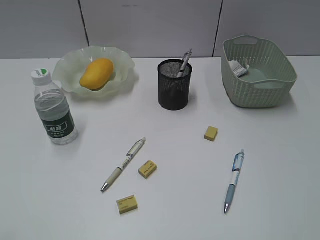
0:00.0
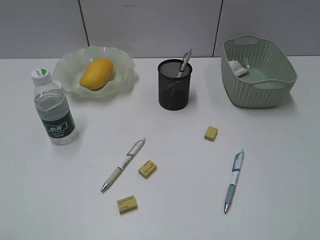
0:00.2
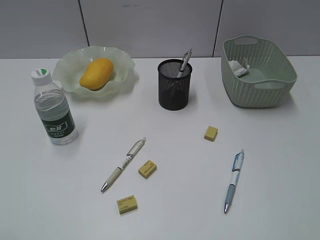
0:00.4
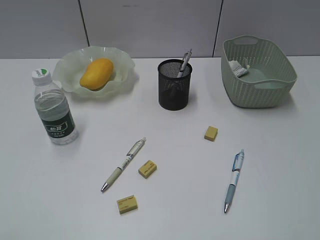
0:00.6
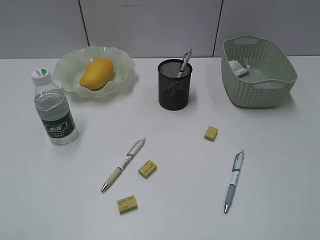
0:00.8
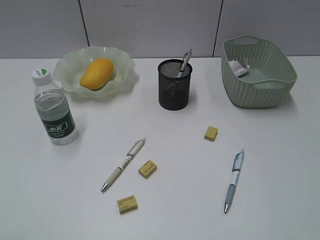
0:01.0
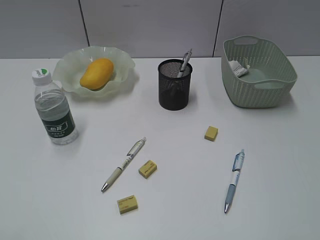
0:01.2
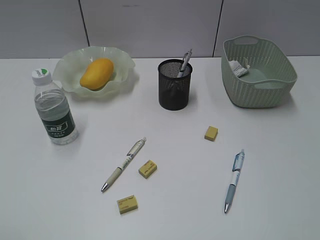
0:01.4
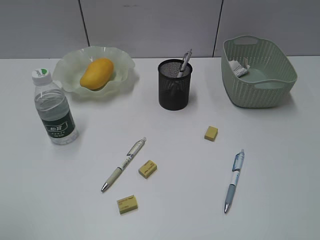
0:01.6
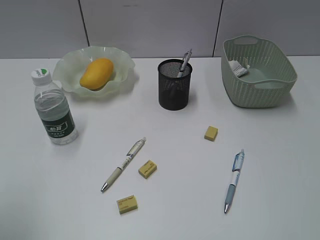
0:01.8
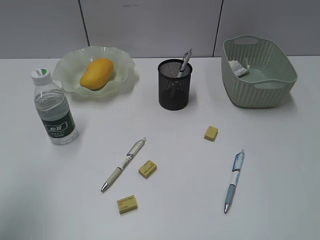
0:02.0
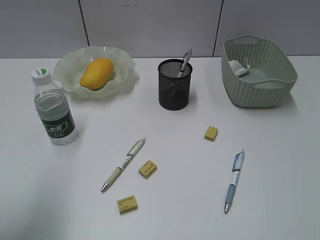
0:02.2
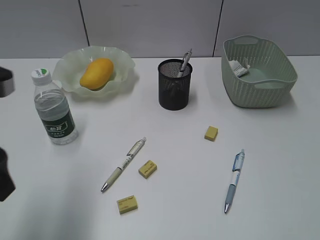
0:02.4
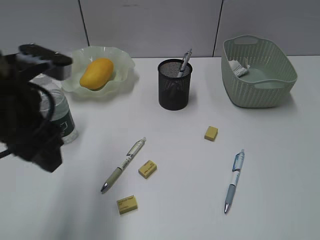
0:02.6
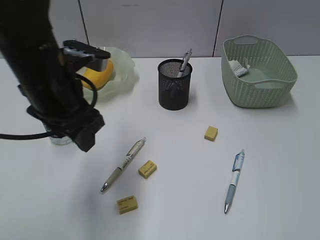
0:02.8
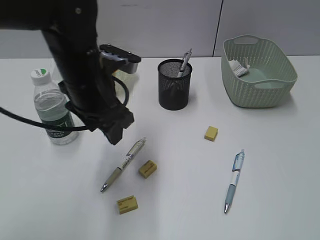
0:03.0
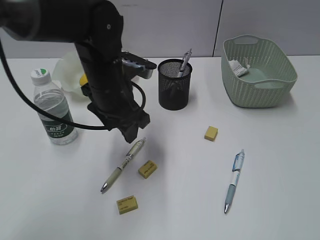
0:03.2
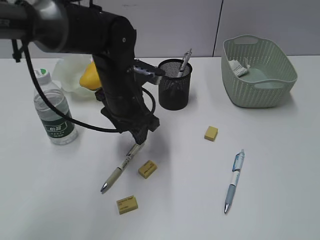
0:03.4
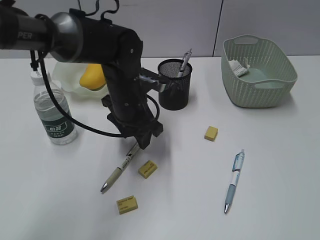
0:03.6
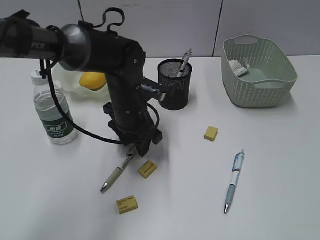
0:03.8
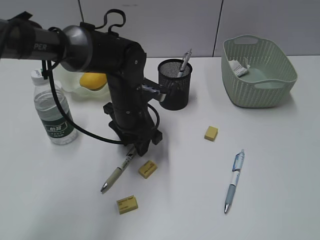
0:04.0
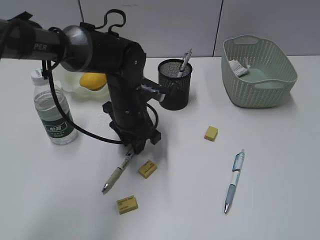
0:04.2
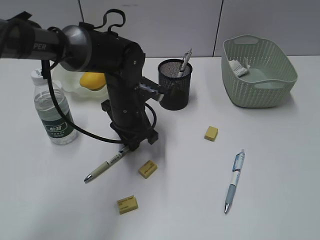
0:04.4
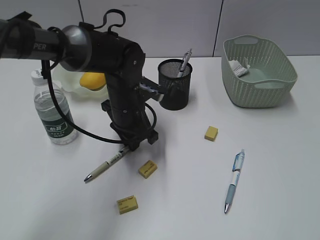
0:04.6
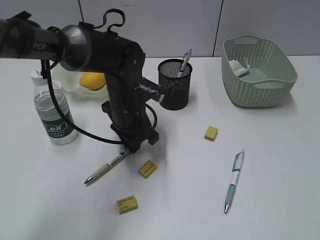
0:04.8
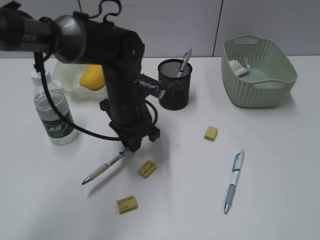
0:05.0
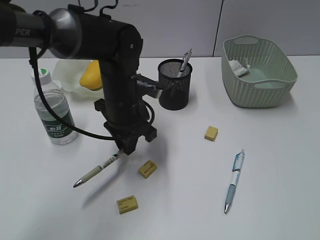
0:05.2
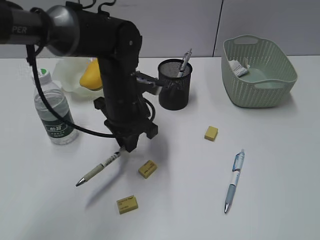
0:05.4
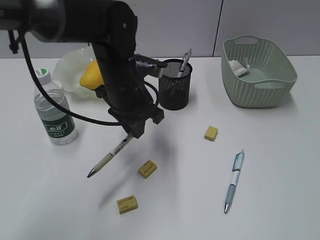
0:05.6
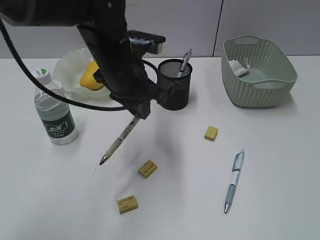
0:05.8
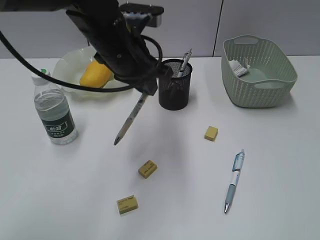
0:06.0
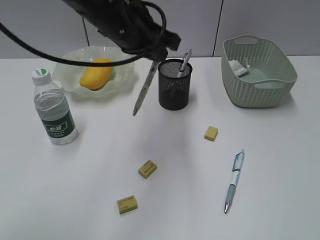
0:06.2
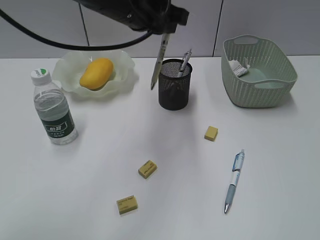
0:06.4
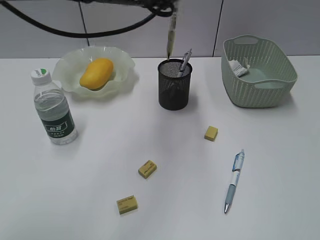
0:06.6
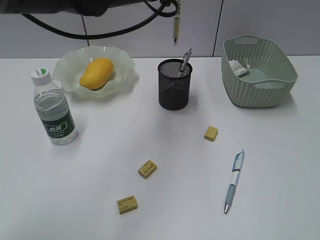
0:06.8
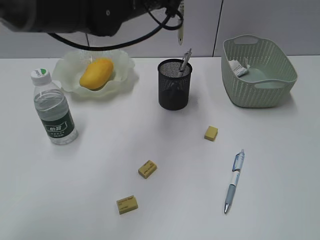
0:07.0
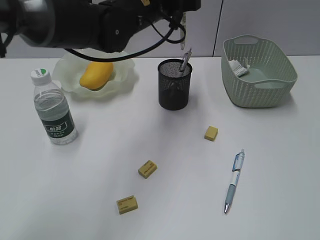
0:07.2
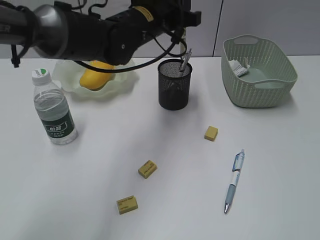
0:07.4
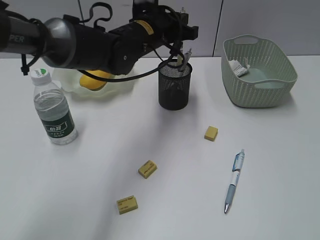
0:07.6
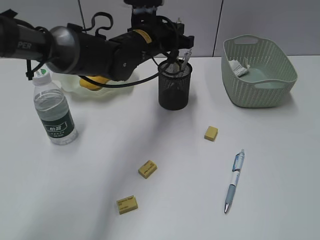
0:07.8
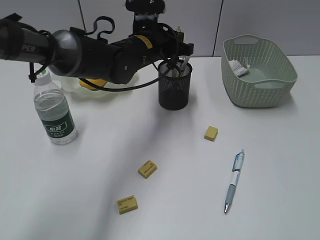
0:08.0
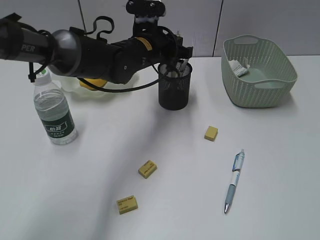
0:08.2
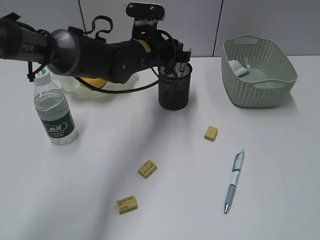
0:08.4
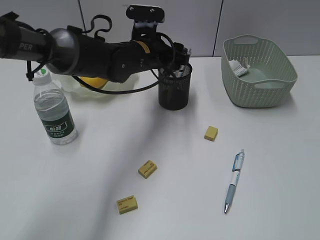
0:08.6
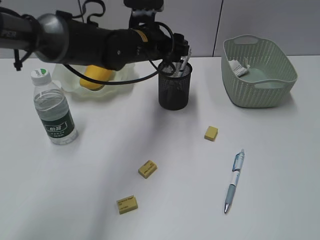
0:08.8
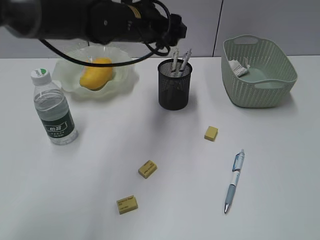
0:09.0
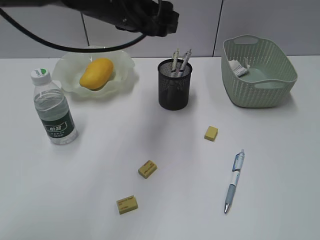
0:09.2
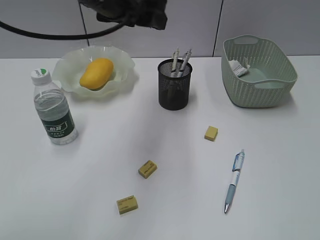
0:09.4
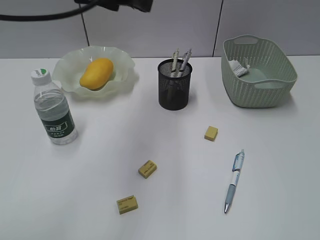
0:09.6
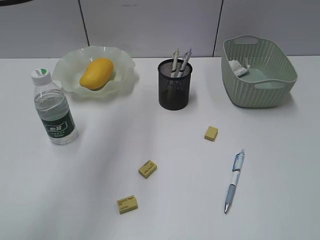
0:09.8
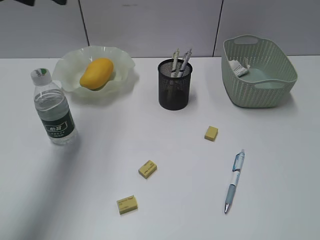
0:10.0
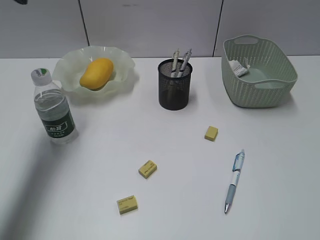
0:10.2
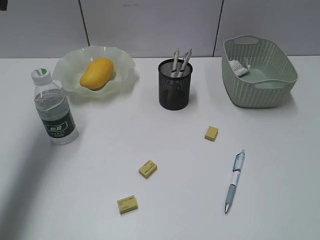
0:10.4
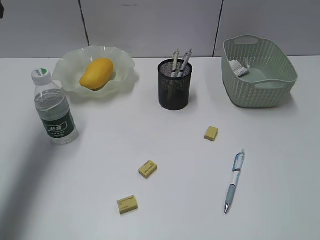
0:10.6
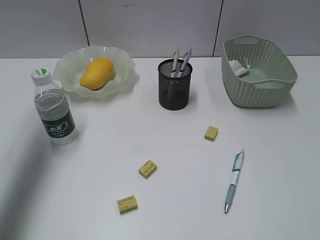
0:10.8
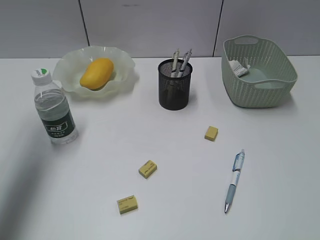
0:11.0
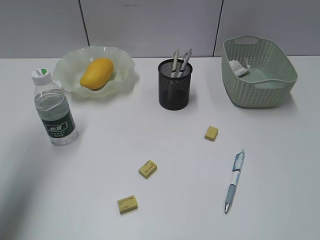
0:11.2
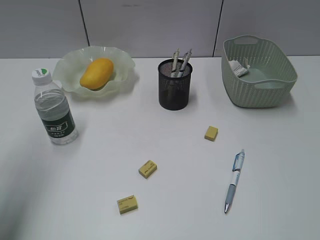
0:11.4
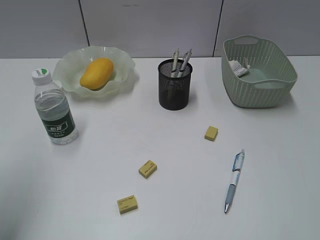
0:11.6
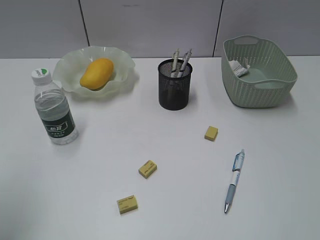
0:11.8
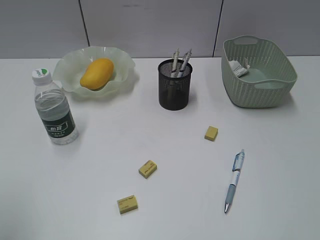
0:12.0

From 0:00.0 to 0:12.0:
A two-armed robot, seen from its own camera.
Step, from 0:00.0 to 0:04.6: Grasp the yellow pen with left gripper.
Step, from 0:04.8 to 0:08.6: Place the yellow pen in pen holder with left gripper.
From 0:01.6 to 0:03.0: The left gripper moves forward and to the right, some 35 cm.
From 0:03.0 to 0:04.4: The left gripper shifts approximately 10 cm downward and forward, and closes up.
From 0:04.4 to 0:06.0: The left gripper goes about 15 cm upward.
From 0:06.0 to 0:07.6: The left gripper heads forward, covering approximately 10 cm, and moves about 5 cm upward and comes back.
From 0:07.6 to 0:09.0: The left gripper opens its fingers.
From 0:09.0 to 0:10.4: The left gripper goes roughly 30 cm to the left and upward.
From 0:10.4 to 0:12.0: The left gripper is displaced backward by about 25 cm.

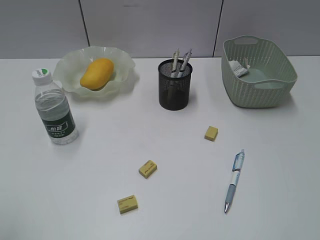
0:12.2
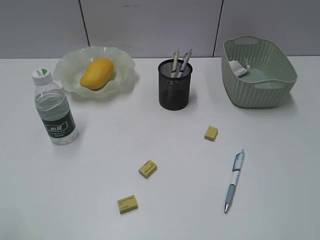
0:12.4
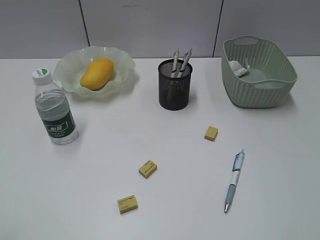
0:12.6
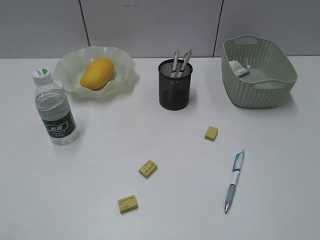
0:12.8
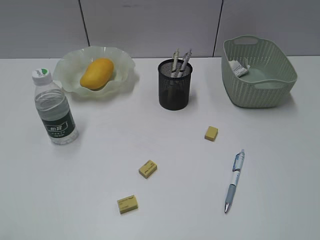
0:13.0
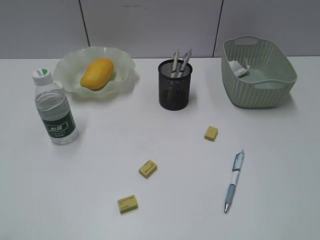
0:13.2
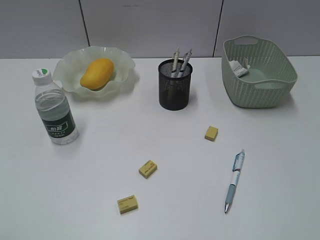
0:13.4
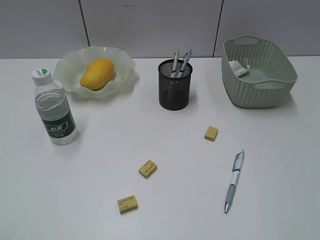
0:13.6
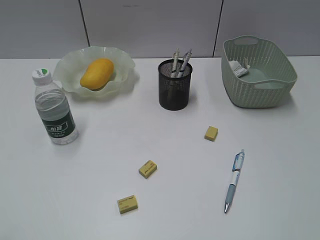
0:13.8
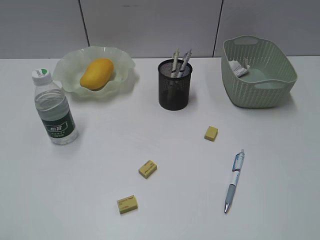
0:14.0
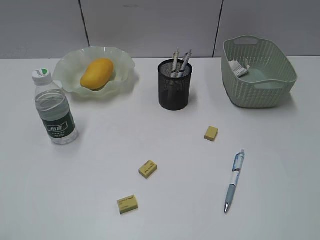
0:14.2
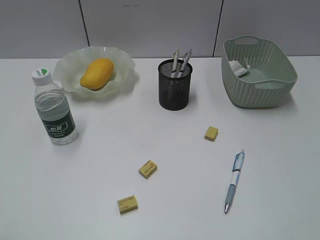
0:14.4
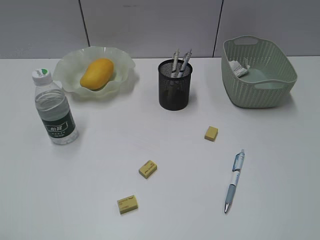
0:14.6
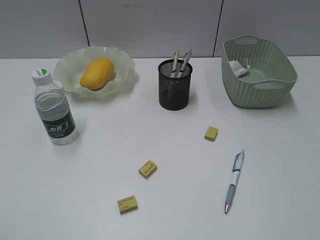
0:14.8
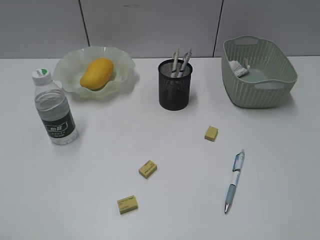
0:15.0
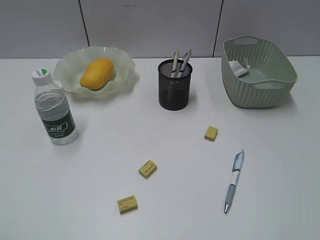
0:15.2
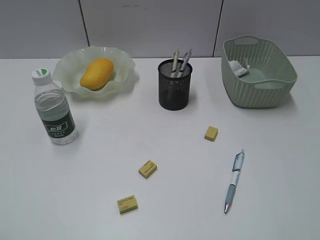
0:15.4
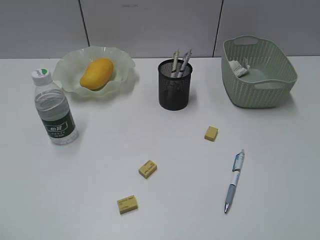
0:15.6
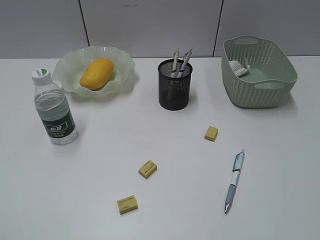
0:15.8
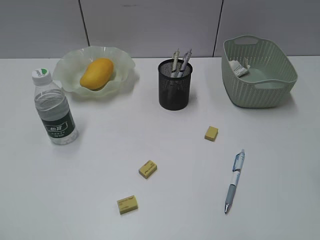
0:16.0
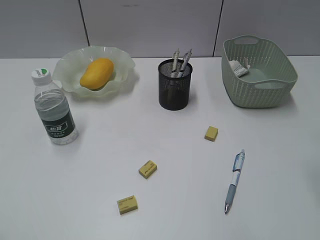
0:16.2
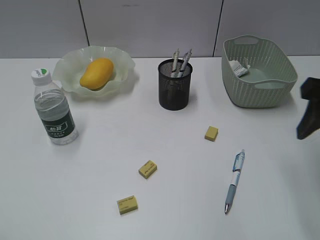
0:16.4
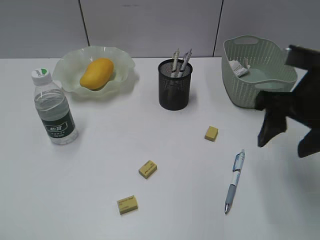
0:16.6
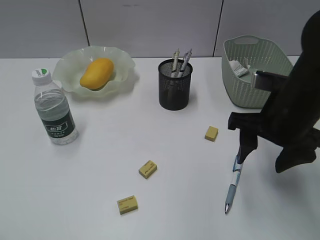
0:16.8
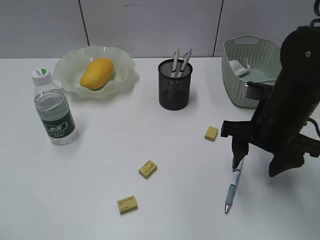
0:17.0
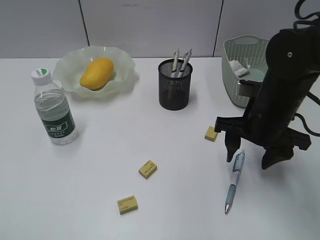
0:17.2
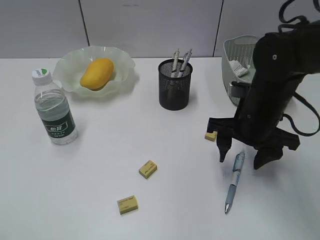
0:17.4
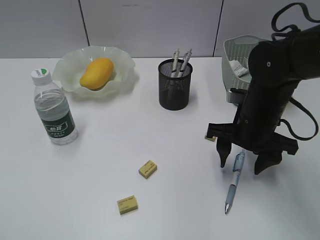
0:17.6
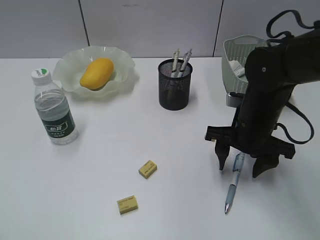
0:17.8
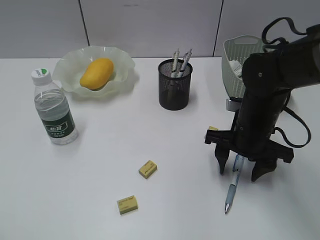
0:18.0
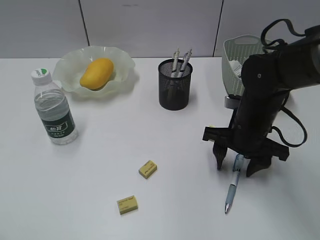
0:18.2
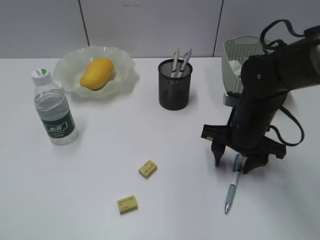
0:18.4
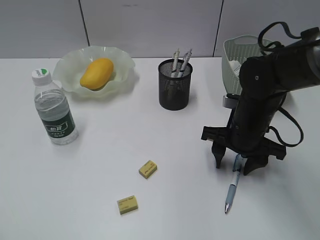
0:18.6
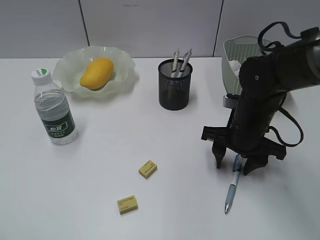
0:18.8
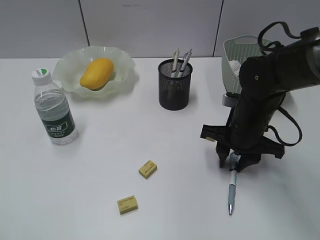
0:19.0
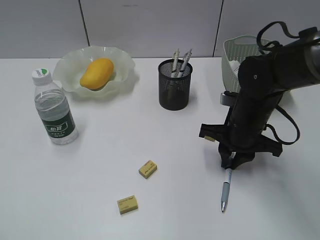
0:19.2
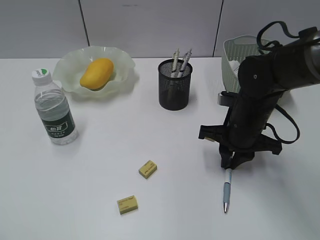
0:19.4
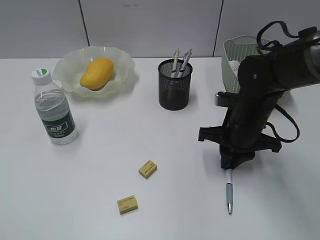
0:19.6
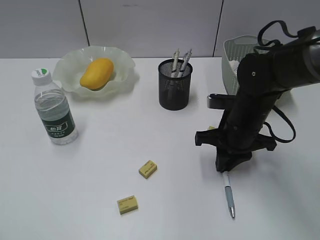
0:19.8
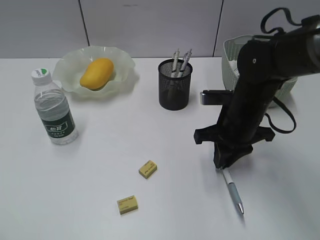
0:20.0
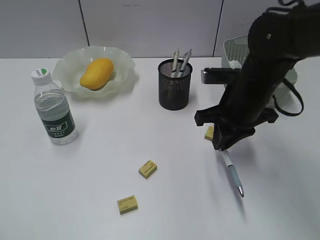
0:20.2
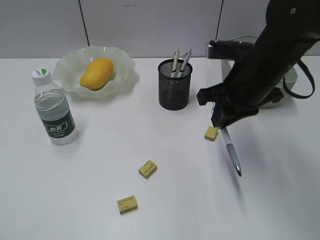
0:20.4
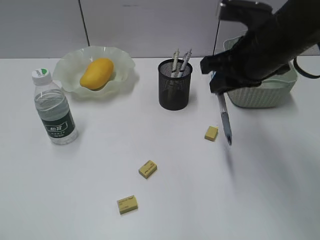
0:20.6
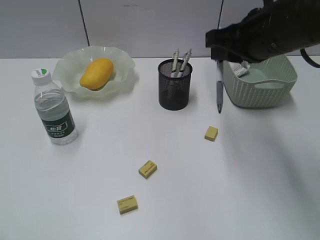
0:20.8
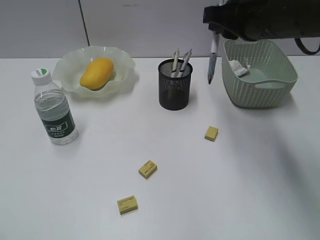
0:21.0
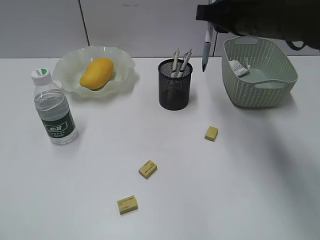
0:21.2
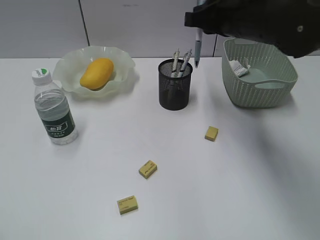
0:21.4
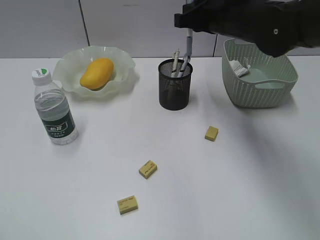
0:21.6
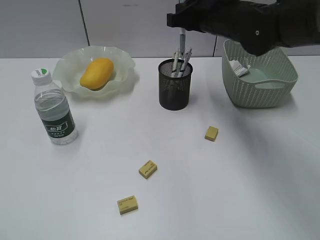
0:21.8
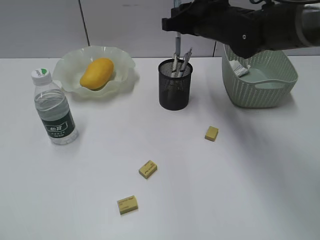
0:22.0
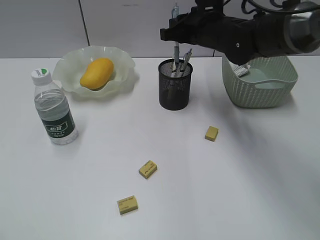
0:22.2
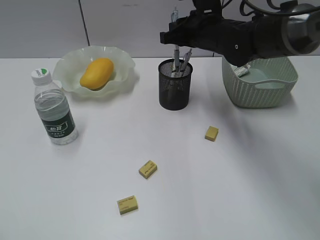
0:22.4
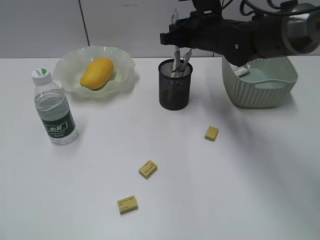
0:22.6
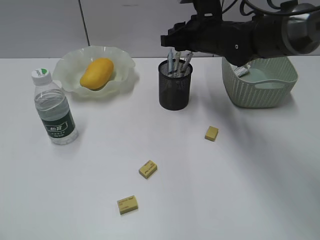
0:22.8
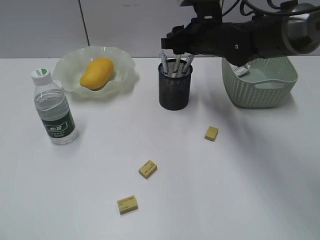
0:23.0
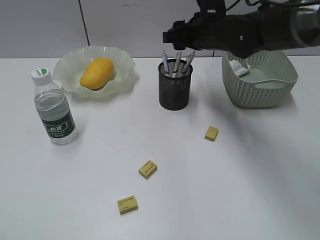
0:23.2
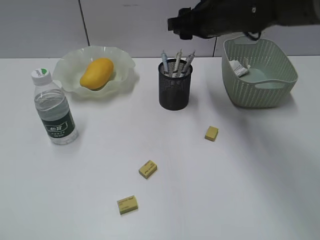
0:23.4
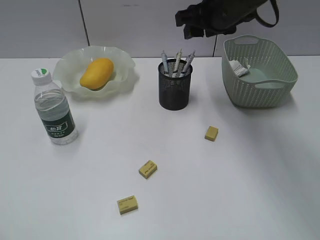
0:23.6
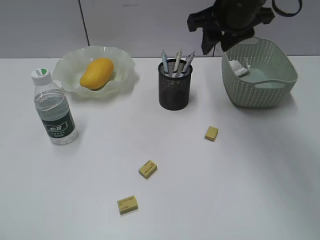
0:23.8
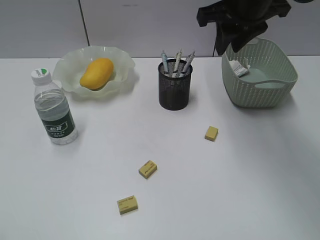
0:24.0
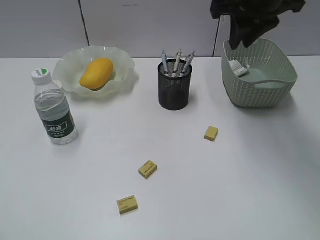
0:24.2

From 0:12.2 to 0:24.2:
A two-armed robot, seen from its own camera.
Step, from 0:12.2 to 0:19.6: Grasp the blue pen with right gripper.
Step, from 0:19.8 to 0:23.0: Place the blue pen in pen holder with right gripper.
From 0:13.8 to 0:15.2: Neither gripper changes place.
From 0:15.2 to 0:16.6: The right gripper moves forward, approximately 25 cm.
From 0:16.6 to 0:18.2: The right gripper moves downward, to the left and forward, approximately 15 cm.
From 0:18.2 to 0:19.8: The right gripper closes its fingers.
From 0:19.8 to 0:21.2: The right gripper goes about 15 cm upward.
From 0:21.2 to 0:22.6: The right gripper heads forward, downward and to the left, covering approximately 15 cm.
From 0:22.6 to 0:24.2: The right gripper heads upward and to the right, covering roughly 15 cm, and opens, then closes once more.
